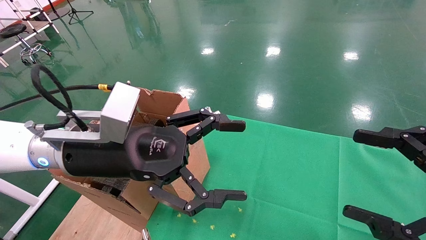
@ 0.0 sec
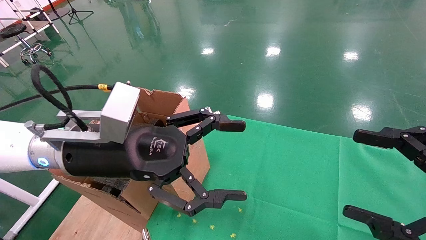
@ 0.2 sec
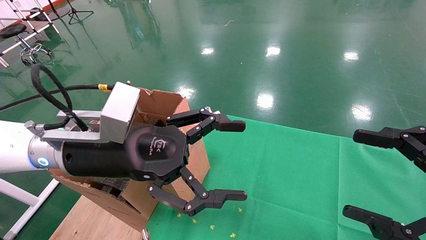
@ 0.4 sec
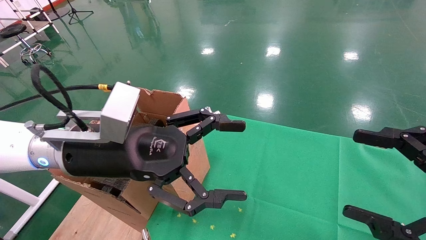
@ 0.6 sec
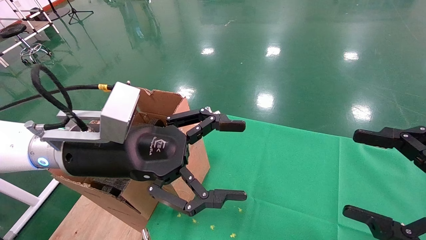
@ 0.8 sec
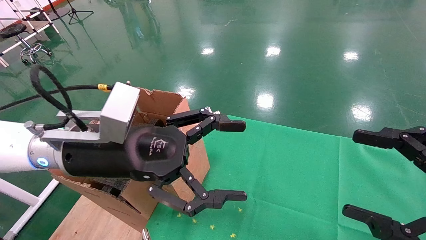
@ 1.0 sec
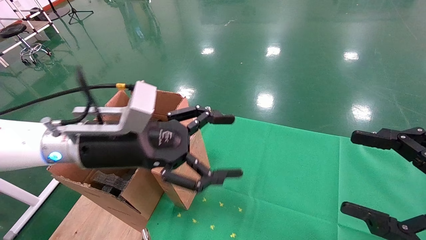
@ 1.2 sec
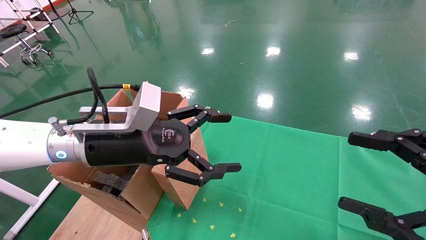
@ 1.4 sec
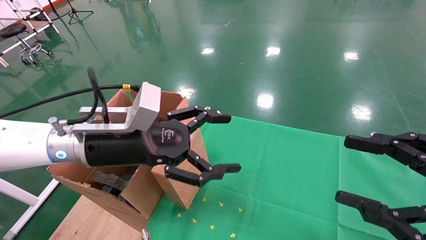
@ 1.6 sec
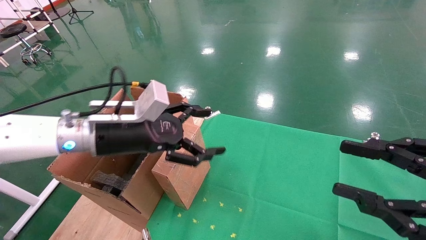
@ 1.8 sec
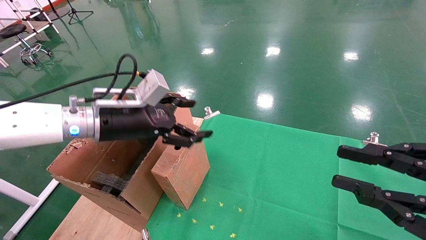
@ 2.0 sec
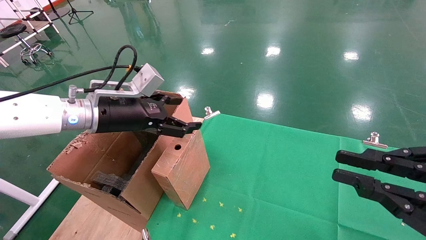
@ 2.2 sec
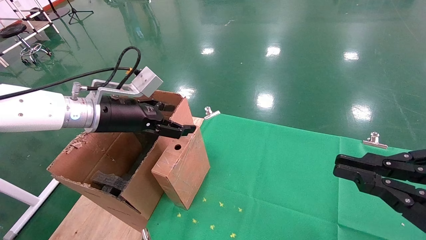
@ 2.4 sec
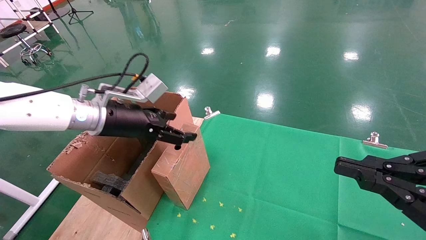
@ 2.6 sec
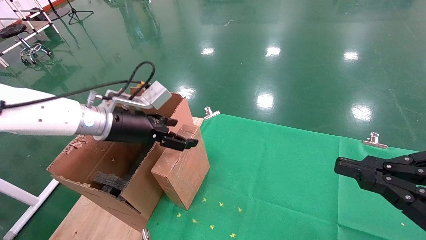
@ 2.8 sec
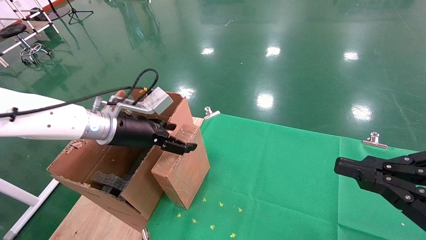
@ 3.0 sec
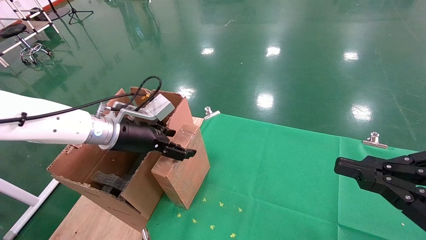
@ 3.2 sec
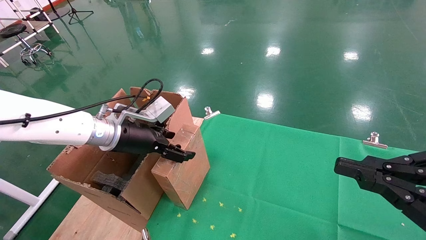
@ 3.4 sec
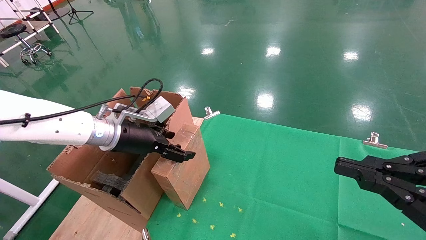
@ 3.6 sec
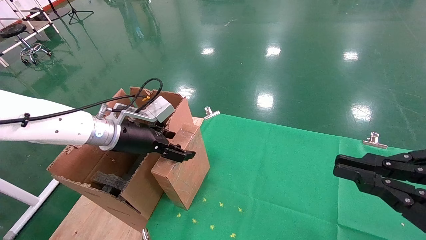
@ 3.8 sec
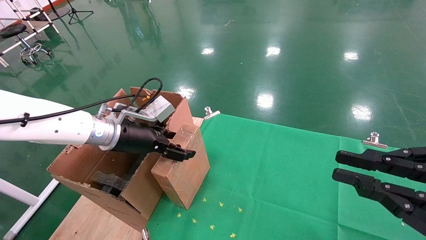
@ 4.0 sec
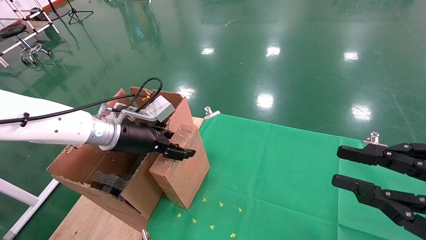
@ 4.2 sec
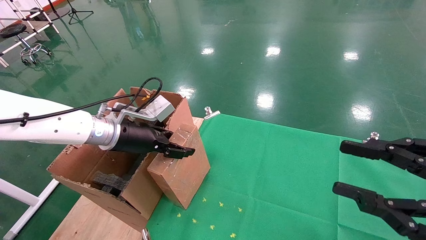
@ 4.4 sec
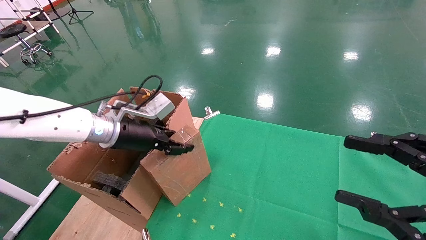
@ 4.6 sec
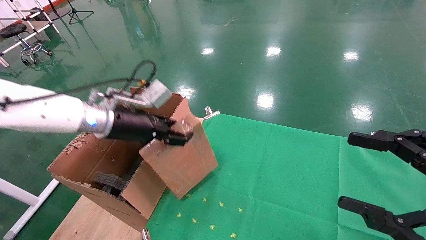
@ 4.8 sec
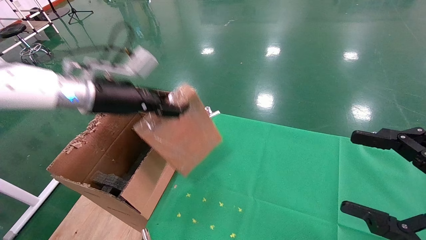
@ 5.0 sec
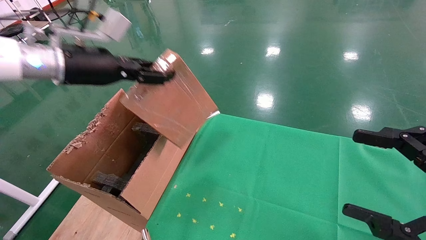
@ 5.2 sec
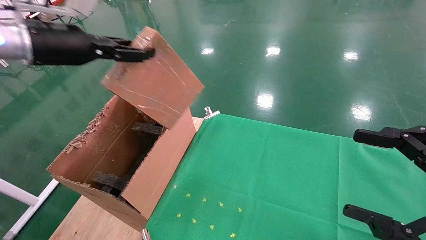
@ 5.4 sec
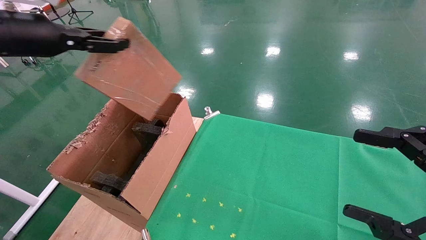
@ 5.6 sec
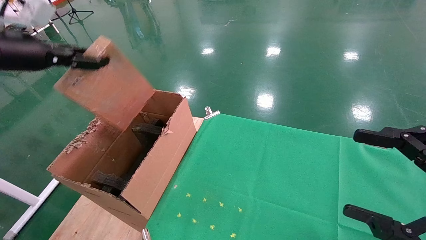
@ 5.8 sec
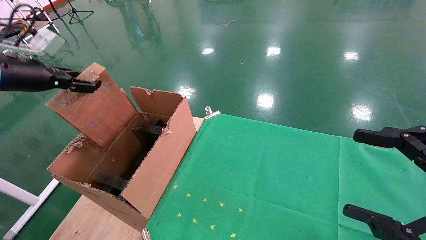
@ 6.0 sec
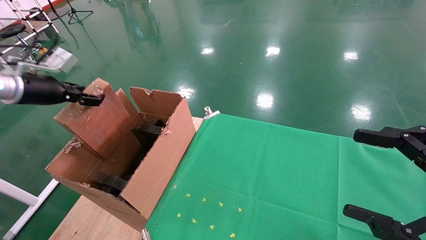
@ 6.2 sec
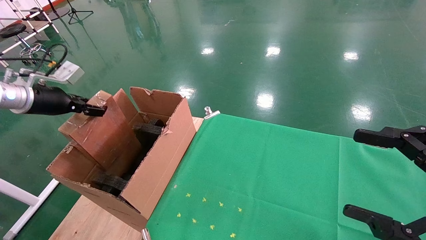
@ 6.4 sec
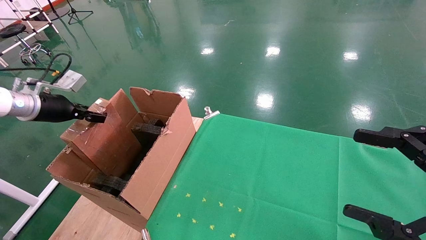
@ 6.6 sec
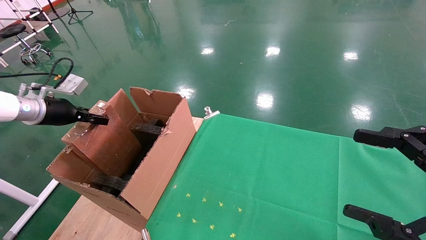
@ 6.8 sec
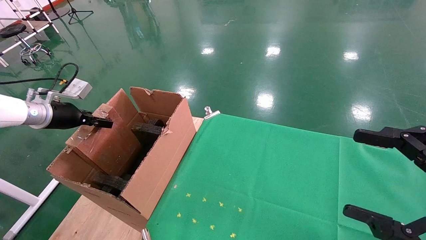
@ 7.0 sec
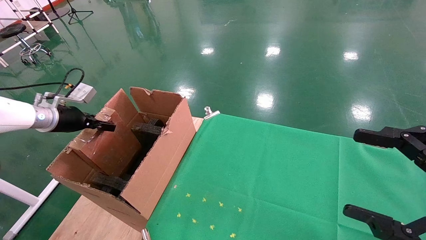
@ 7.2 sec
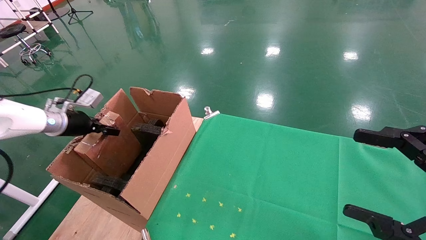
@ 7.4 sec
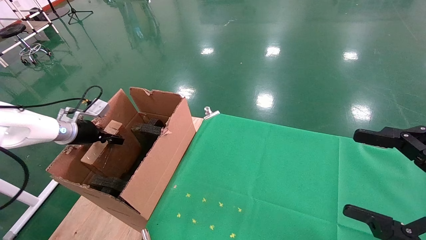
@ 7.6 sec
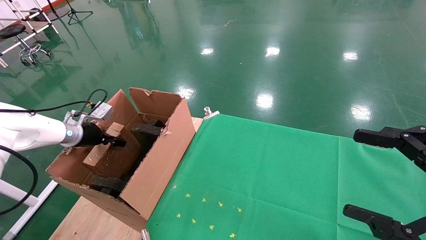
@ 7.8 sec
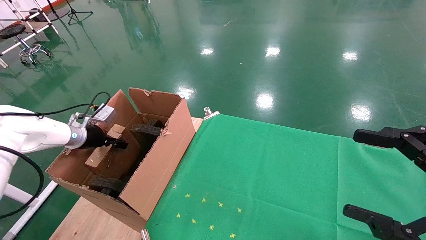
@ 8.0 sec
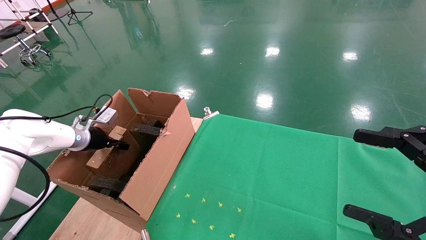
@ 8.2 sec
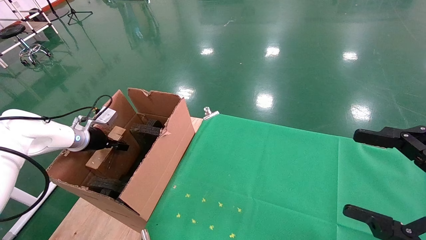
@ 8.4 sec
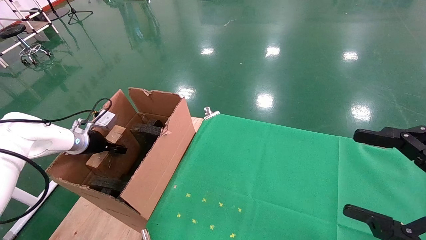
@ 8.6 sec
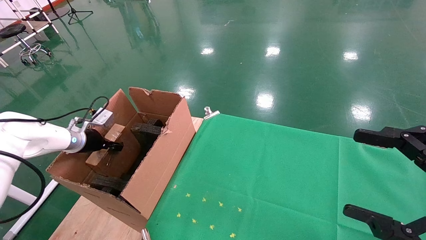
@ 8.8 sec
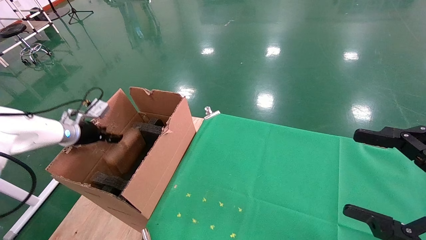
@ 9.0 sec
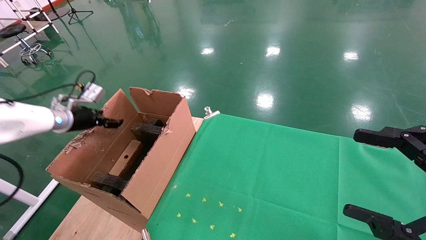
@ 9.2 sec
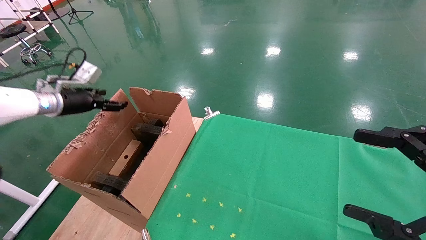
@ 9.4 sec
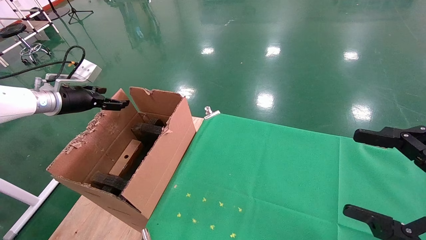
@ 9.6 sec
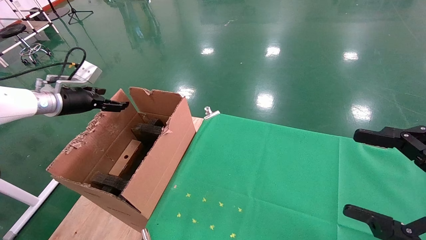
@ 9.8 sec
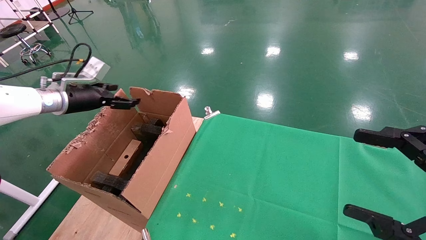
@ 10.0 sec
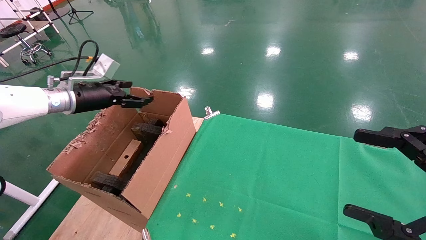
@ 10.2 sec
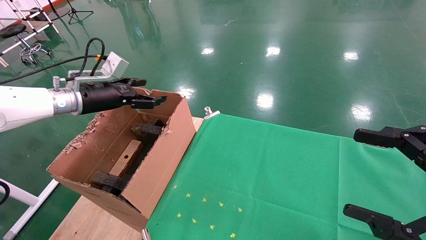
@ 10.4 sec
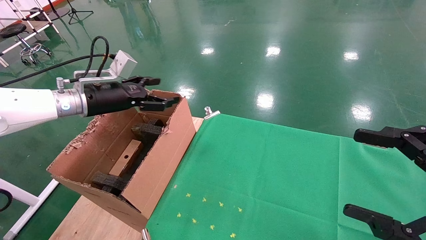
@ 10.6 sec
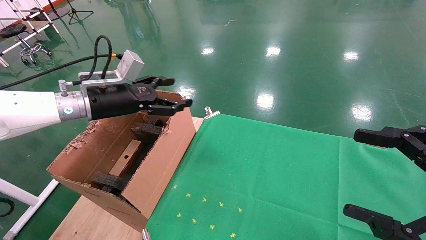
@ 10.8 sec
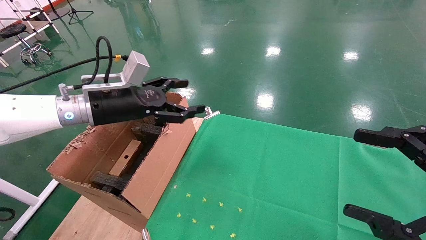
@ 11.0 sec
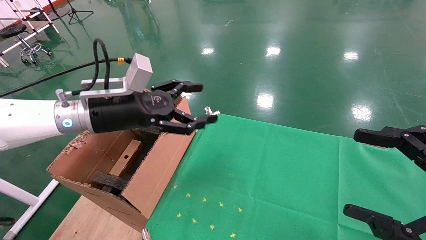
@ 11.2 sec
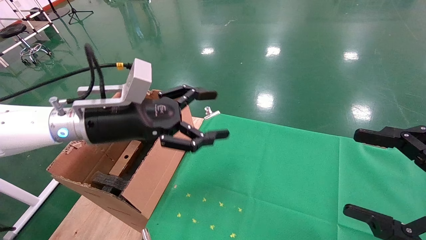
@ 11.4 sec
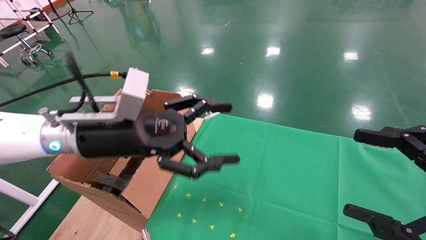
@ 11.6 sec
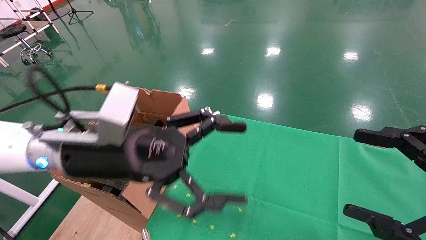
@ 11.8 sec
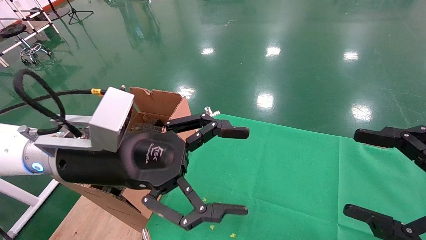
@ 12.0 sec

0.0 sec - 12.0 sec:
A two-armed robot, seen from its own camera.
Task of the whole recording: using a robotic arm to pick up a cardboard box and palace it the carton.
Step, 1.4 sec - 4.6 sec: Pick up the mouse and the power cord paper box.
Step, 4.8 sec - 9.4 sec: Place the mouse and the power cord paper box into the container.
0.0 sec - 1.6 sec: The left gripper ends up roughly 5 cm from where it was.
1.6 sec - 3.0 sec: The left gripper travels forward by approximately 5 cm. Meanwhile the right gripper closes.
3.0 sec - 4.4 sec: Neither gripper changes place.
4.4 sec - 6.0 sec: The right gripper opens up; the left gripper is displaced to the left and upward by approximately 25 cm, and closes its fingers.
6.0 sec - 7.6 sec: The left gripper moves downward and forward, roughly 20 cm.
7.6 sec - 9.0 sec: The left gripper opens its fingers.
9.0 sec - 10.4 sec: The left gripper heads to the right and upward, covering about 15 cm, and opens its fingers.
10.4 sec - 12.0 sec: The left gripper travels to the right and backward by approximately 25 cm.

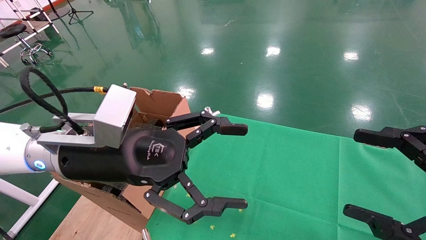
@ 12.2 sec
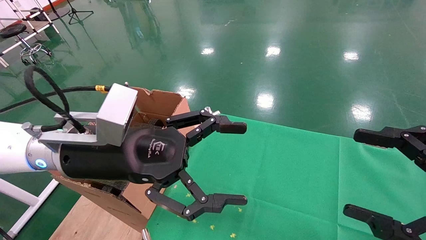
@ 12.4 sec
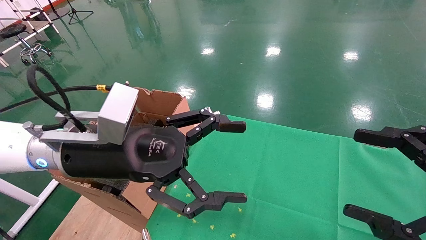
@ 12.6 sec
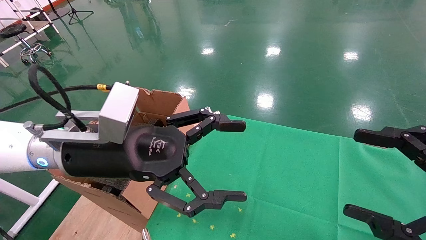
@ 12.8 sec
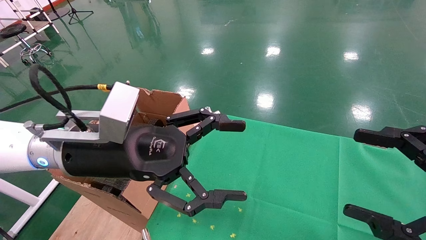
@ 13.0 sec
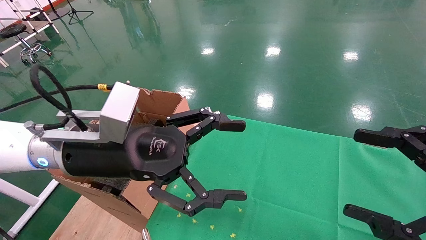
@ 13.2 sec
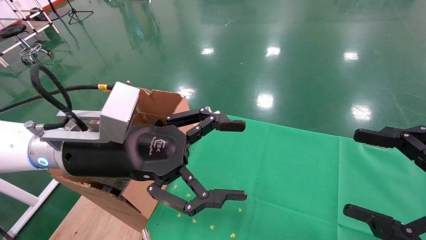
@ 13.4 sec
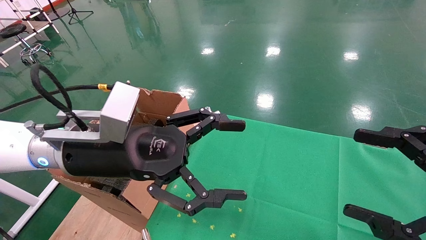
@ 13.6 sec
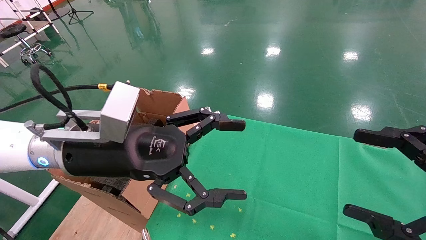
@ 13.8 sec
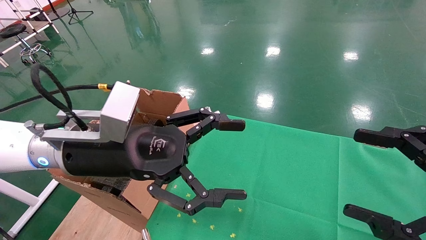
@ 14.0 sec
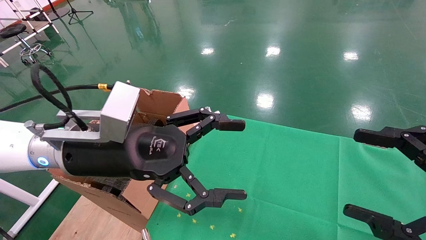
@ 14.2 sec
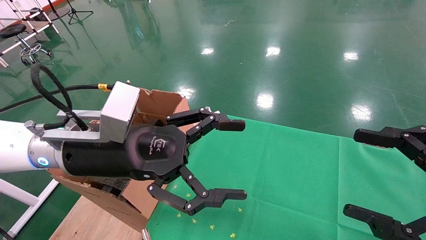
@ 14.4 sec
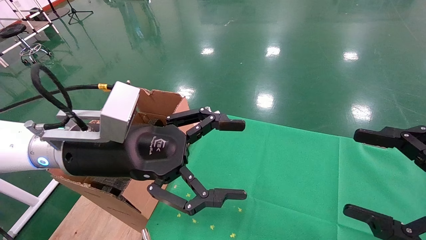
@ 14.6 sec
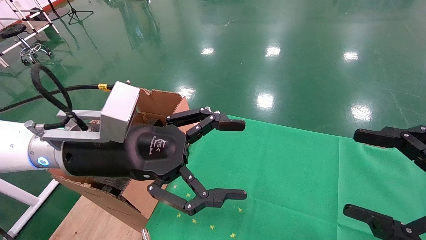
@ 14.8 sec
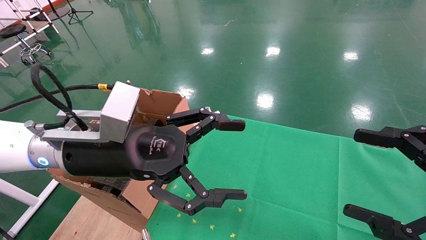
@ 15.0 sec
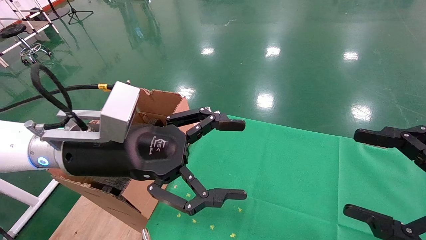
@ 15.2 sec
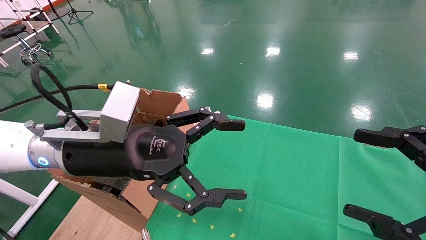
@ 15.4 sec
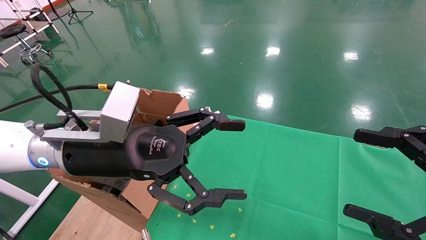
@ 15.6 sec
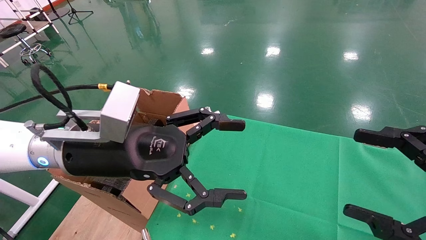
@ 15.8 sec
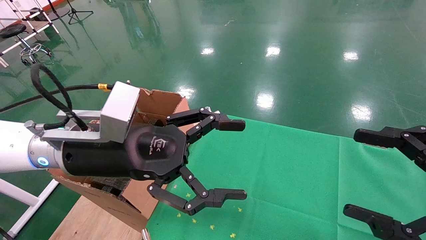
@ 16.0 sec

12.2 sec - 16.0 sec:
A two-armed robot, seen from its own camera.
Task of the whole recording: using a robotic arm to pick up a cardboard box and palace it the carton.
12.2 sec - 16.0 sec: Neither gripper changes place.
